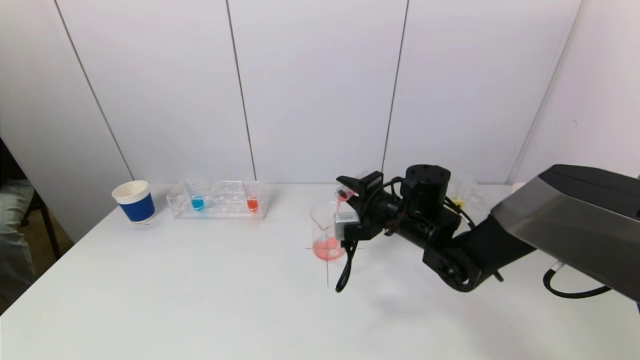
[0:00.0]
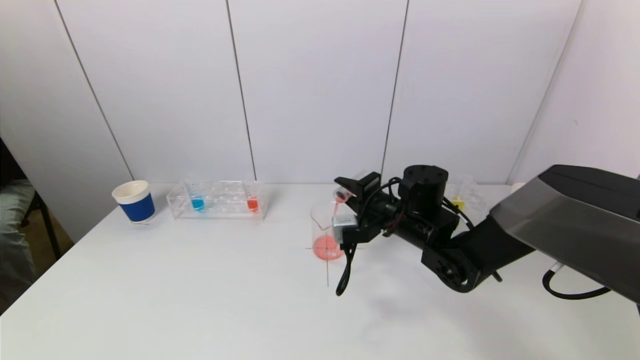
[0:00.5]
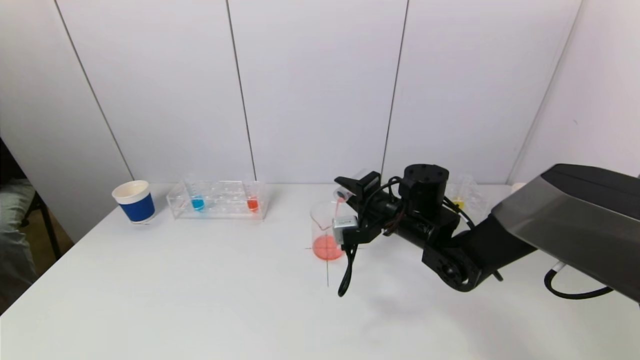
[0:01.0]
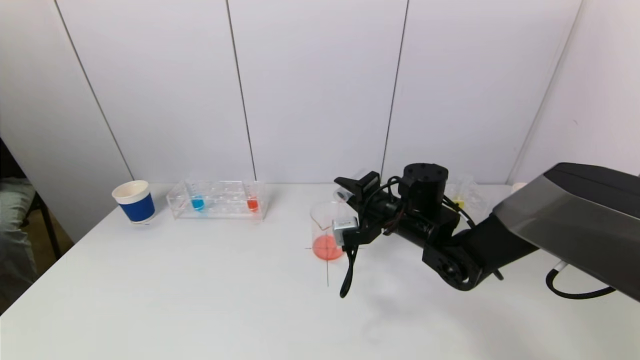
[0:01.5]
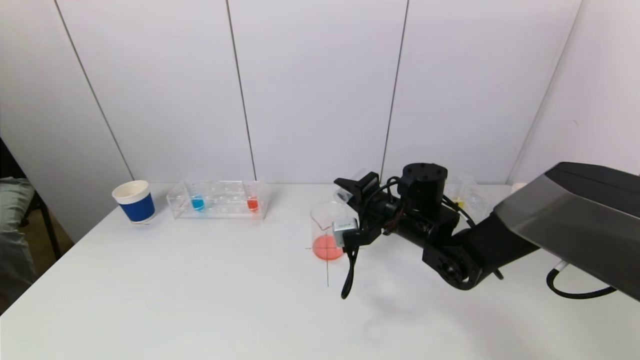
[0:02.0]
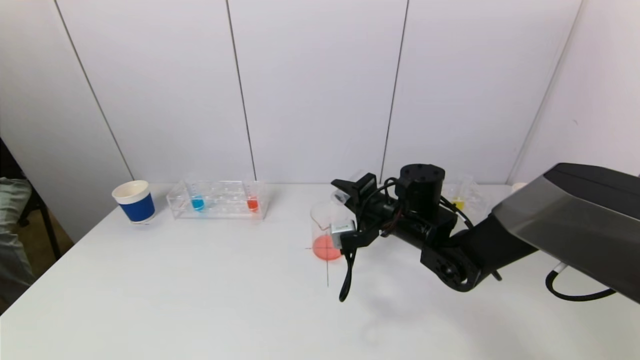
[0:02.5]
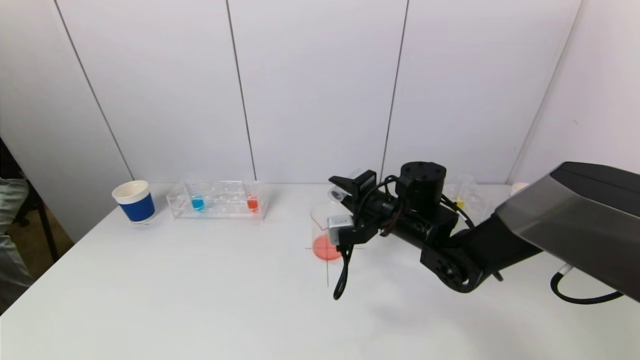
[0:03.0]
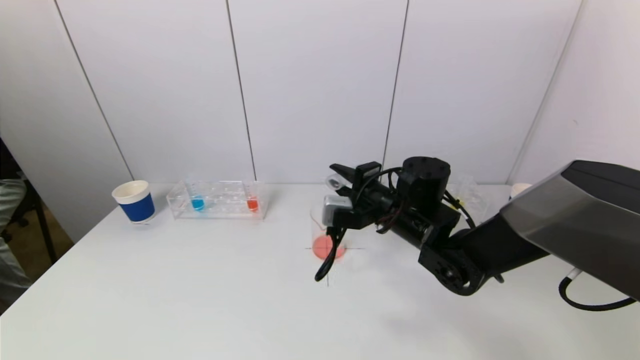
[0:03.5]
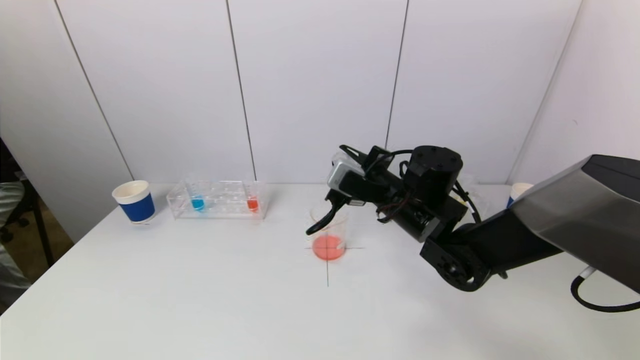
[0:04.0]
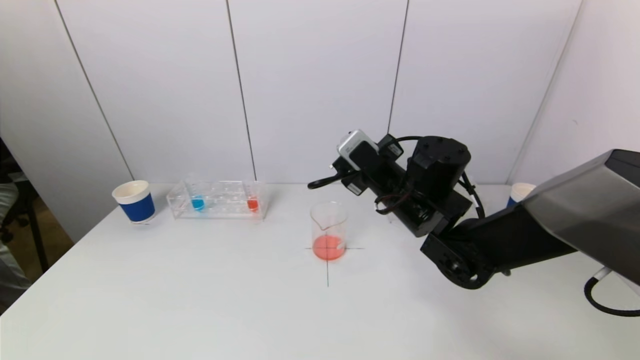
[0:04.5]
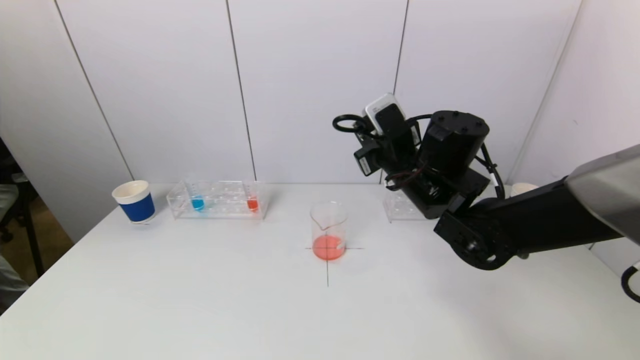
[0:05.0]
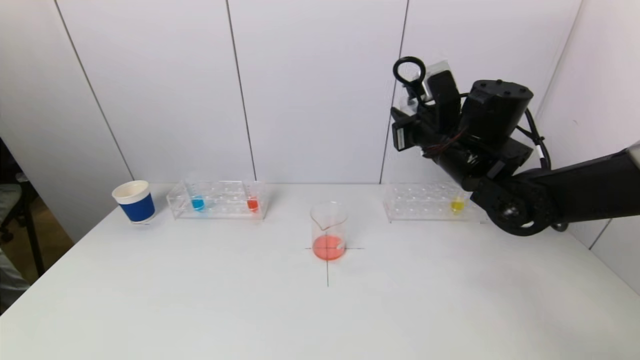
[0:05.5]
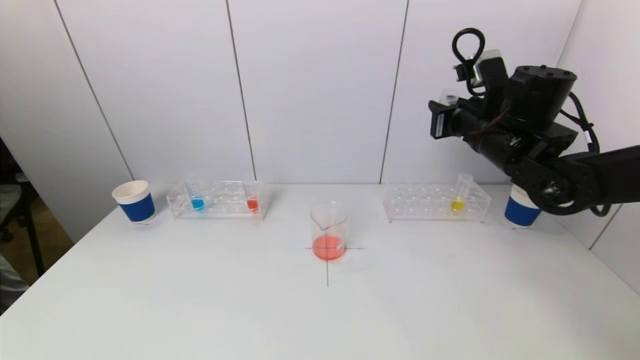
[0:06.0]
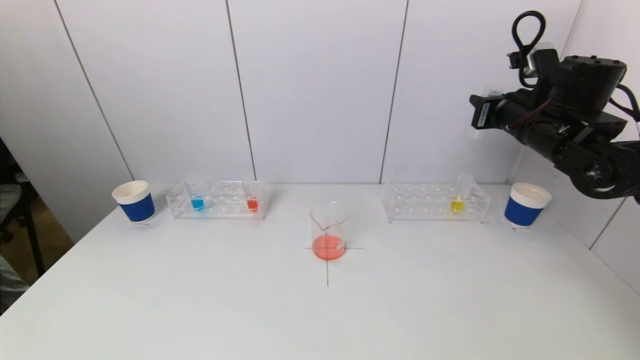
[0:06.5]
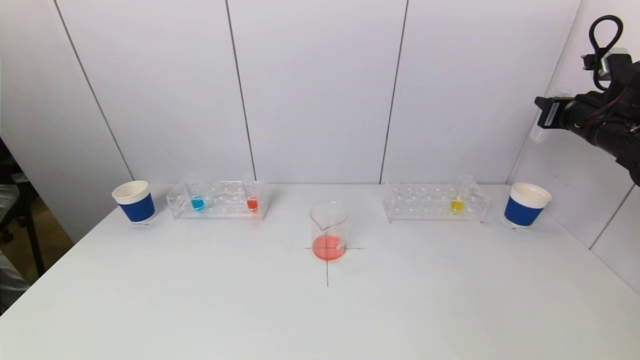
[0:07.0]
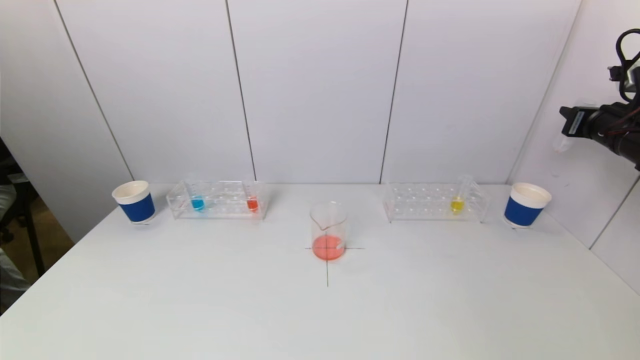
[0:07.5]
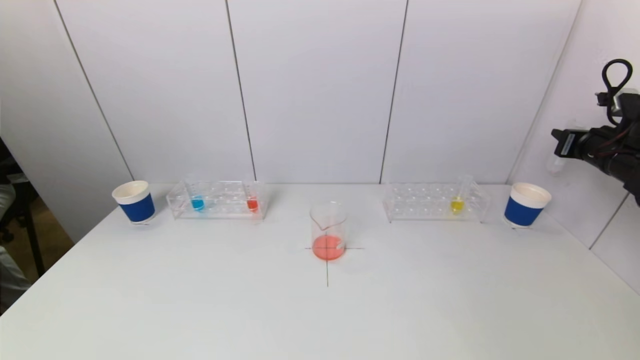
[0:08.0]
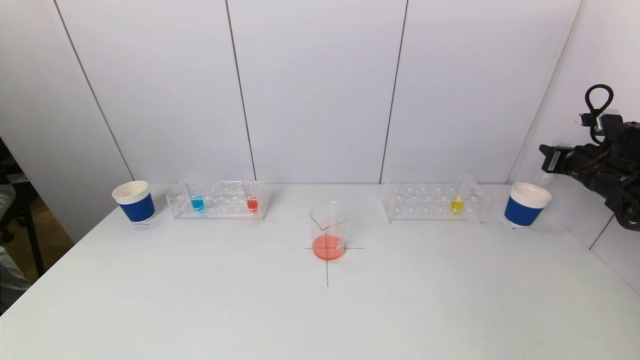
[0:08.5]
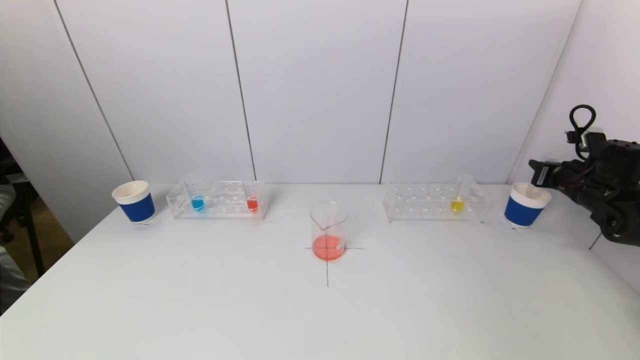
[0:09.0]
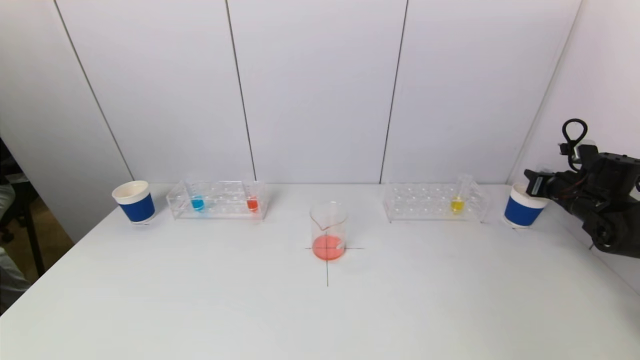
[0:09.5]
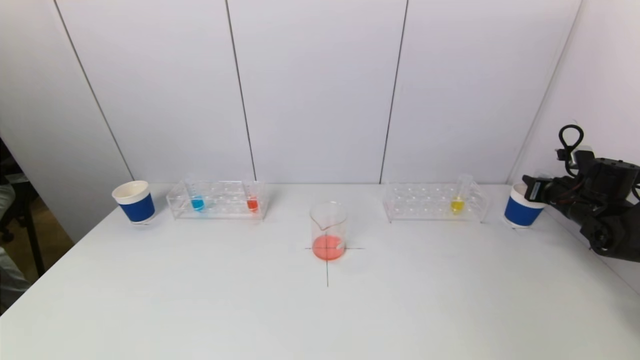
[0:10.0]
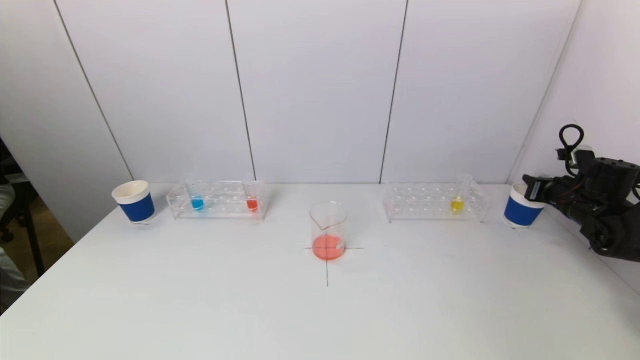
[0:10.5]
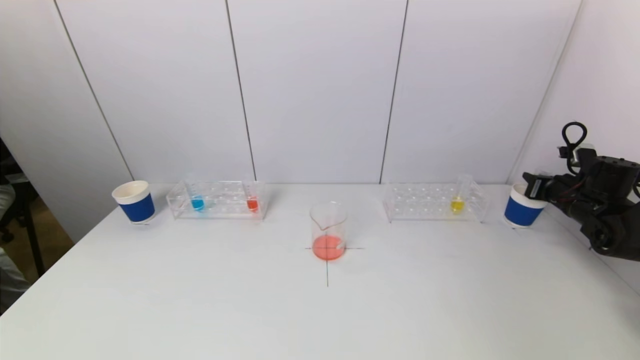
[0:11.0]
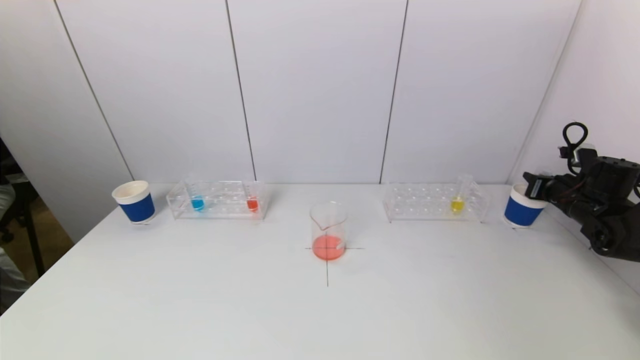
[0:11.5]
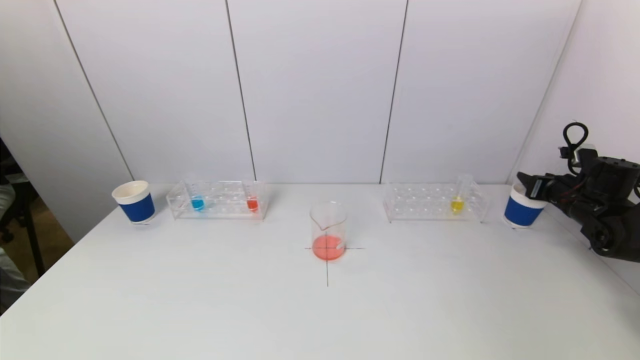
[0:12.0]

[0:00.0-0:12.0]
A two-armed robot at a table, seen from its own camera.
Task of the whole recording: pick up a test tube with pigment on left test tube rack and a test tube with pigment on right test tube rack by grippers and pour them into the beaker.
Step, 0:00.0 to 0:03.5: Pour the red reagent into the graduated cylinder with the right gripper.
0:00.0 to 0:02.0: There are only small adjustments of the grippers.
0:02.0 to 0:04.0: The right gripper moves some 5 cm.
0:04.0 to 0:06.0: The right gripper moves to the right and upward, approximately 15 cm.
0:06.0 to 0:08.0: The right gripper heads to the right, covering some 25 cm.
0:08.0 to 0:10.0: The right gripper goes roughly 10 cm downward.
0:10.0 to 0:12.0: The right gripper opens up.

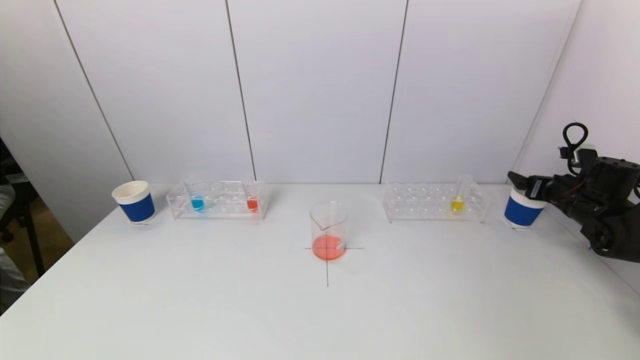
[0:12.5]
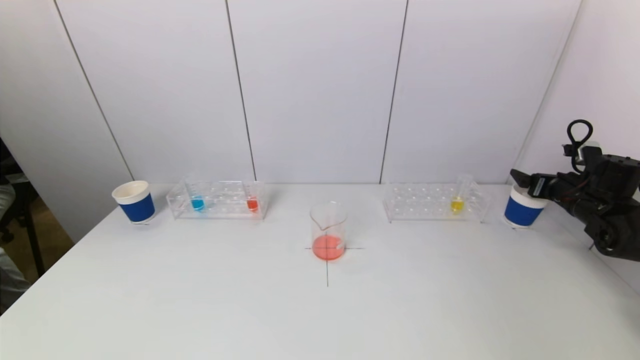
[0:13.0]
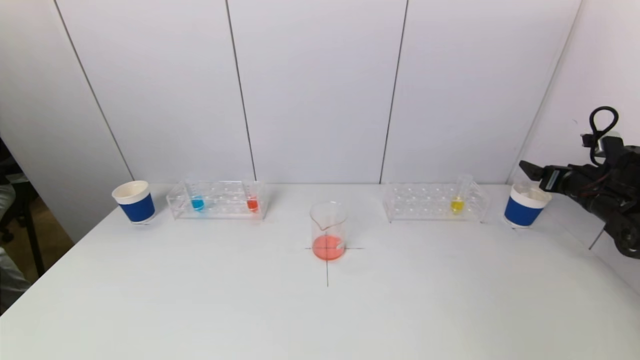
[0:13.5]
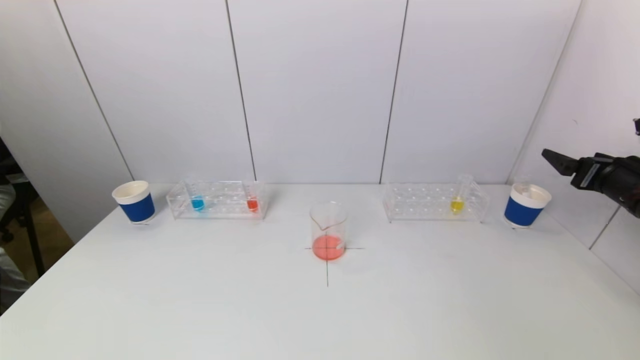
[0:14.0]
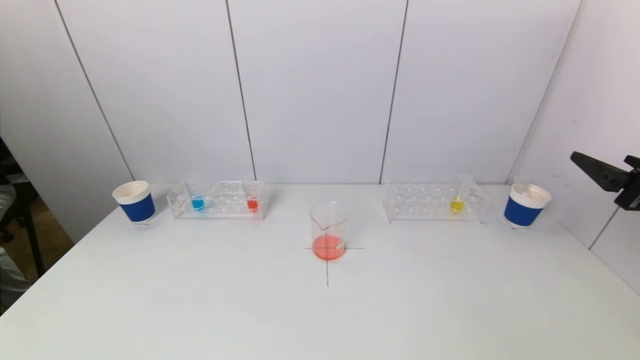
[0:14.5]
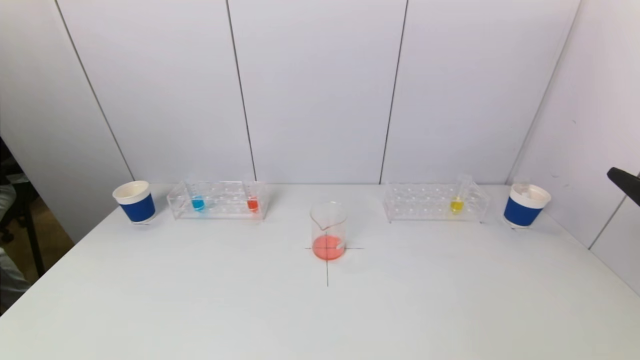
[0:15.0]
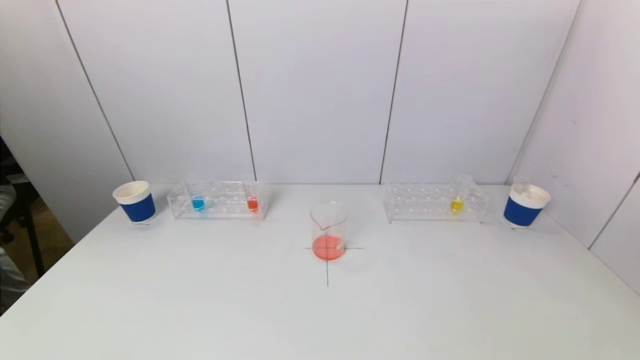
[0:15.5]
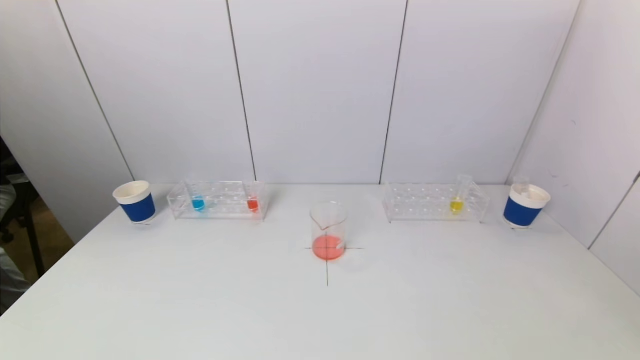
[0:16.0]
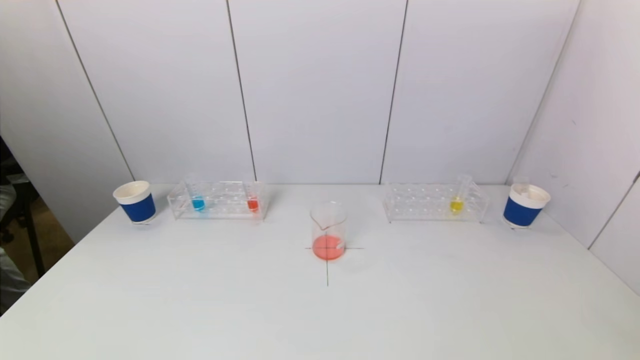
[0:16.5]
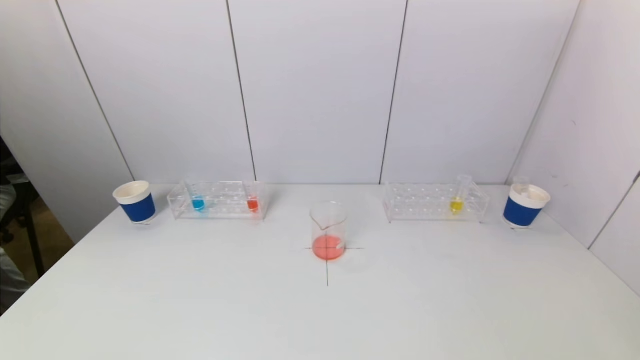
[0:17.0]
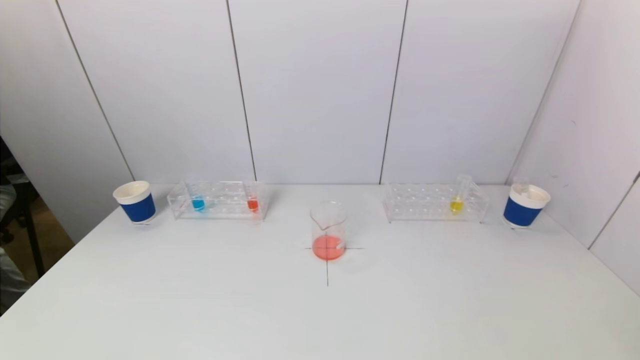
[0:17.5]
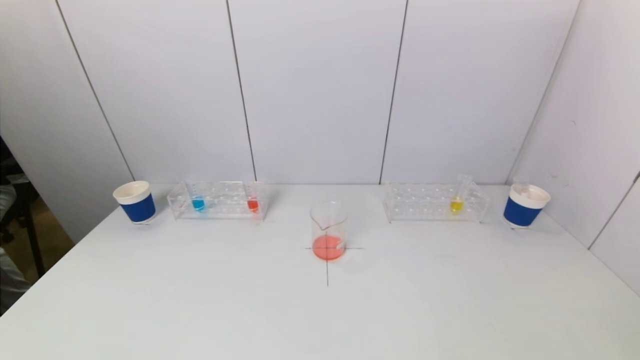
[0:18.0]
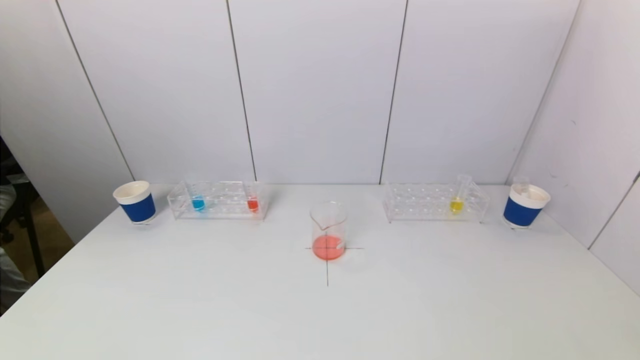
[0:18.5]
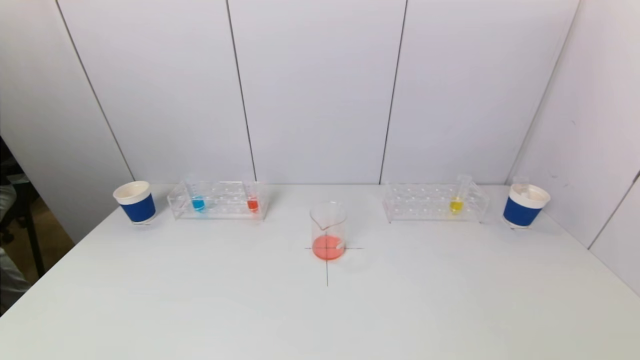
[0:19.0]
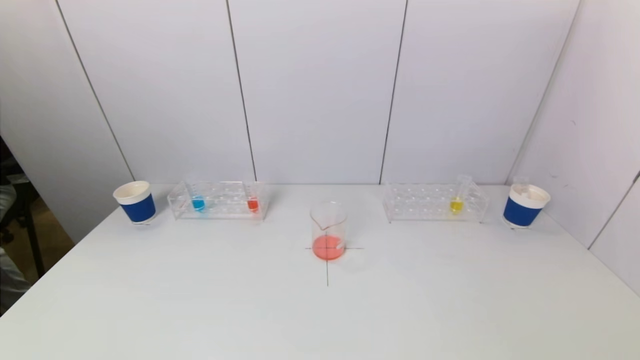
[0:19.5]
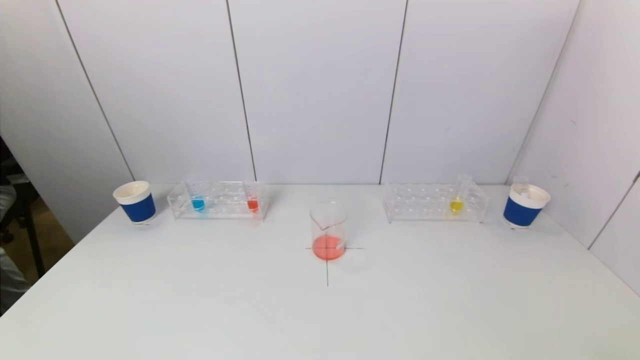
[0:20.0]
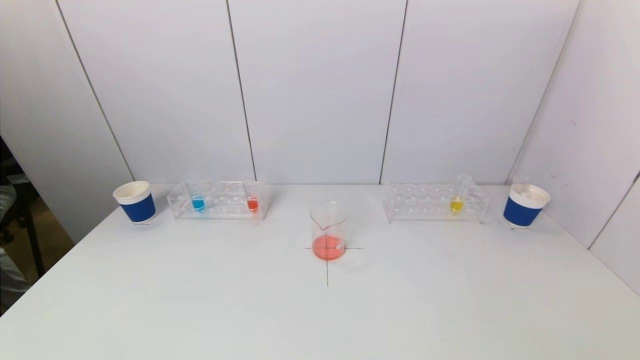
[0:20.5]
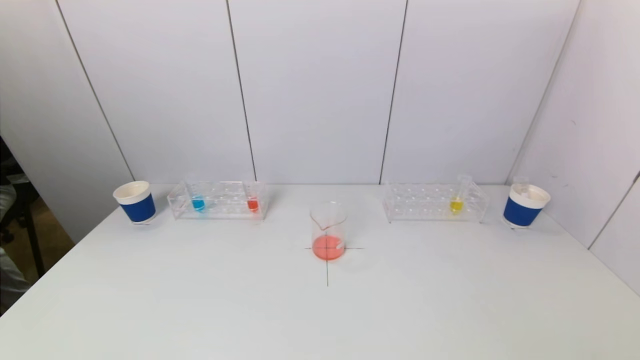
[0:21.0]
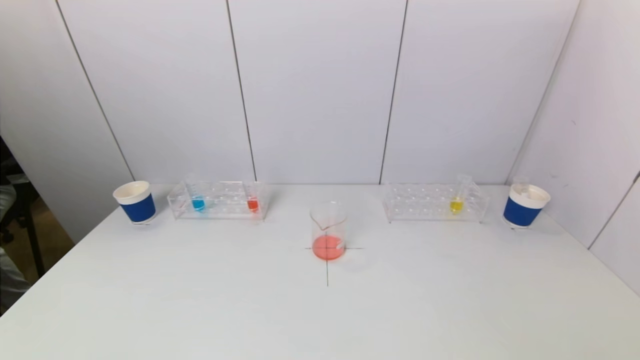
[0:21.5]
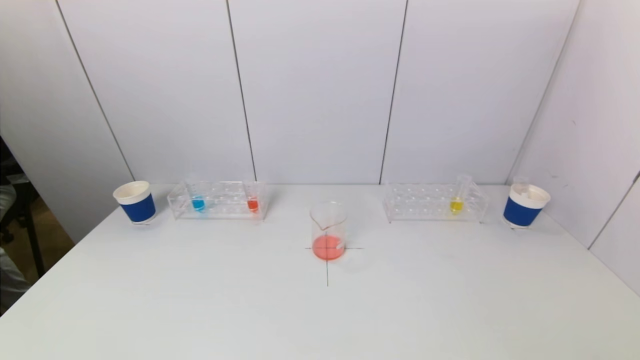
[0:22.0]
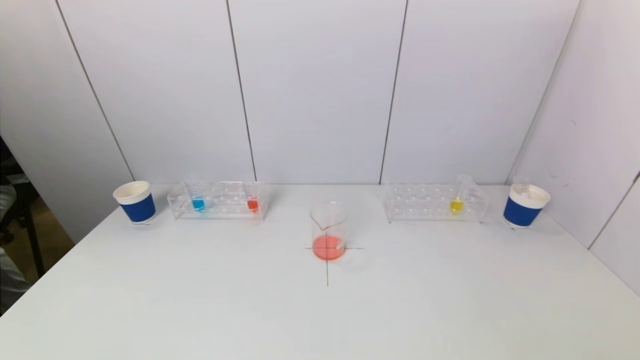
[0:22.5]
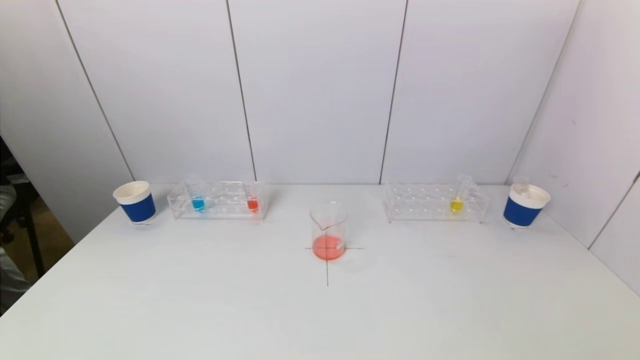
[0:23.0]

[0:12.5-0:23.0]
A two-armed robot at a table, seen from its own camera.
Task of the whole recording: pick up a test tube with pigment on left test tube rack and a test tube with pigment on right test tube rack by grippers and pour them into the beaker.
0:12.5 to 0:14.5: The right gripper goes roughly 25 cm backward and upward.
0:14.5 to 0:16.5: The right gripper heads backward, covering roughly 20 cm.
0:21.0 to 0:23.0: Neither gripper changes place.
